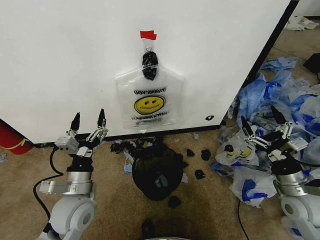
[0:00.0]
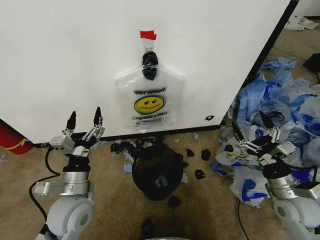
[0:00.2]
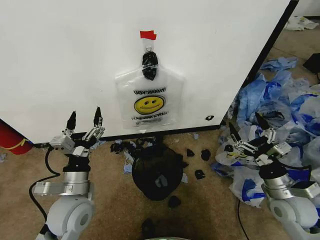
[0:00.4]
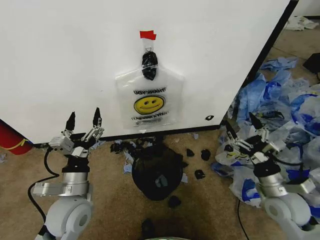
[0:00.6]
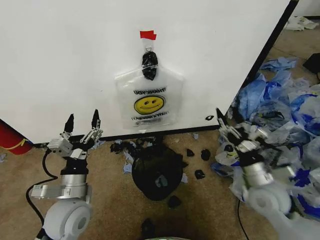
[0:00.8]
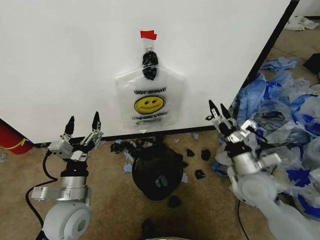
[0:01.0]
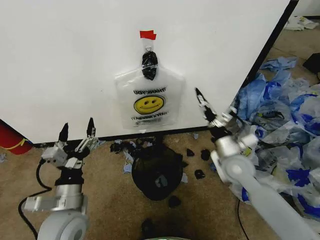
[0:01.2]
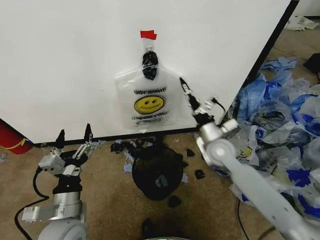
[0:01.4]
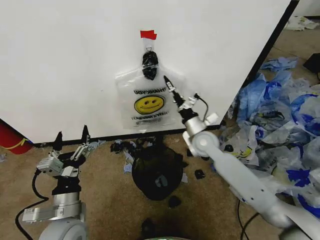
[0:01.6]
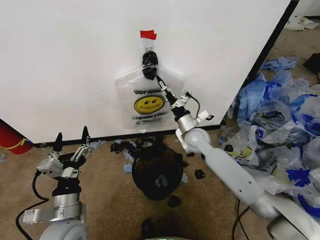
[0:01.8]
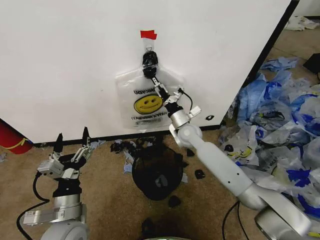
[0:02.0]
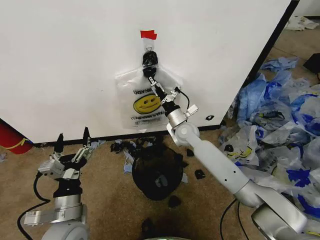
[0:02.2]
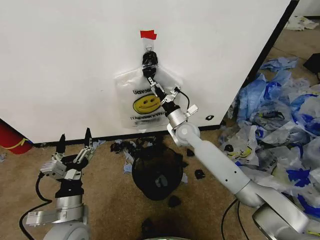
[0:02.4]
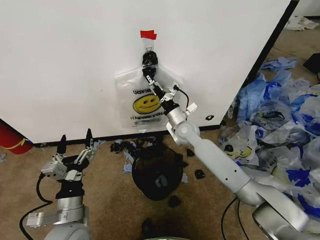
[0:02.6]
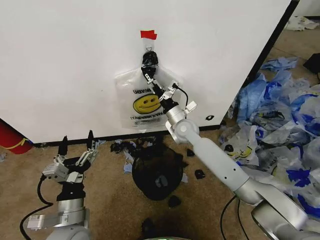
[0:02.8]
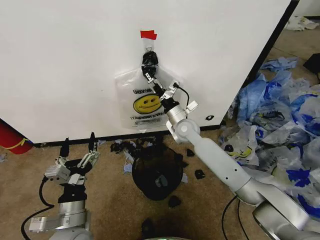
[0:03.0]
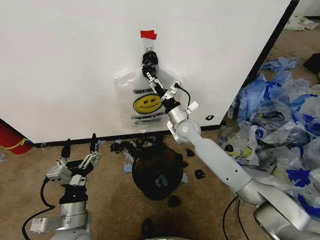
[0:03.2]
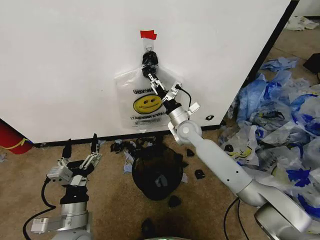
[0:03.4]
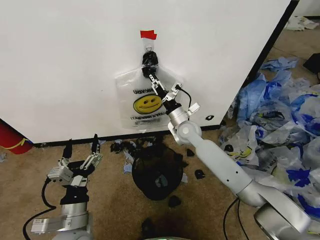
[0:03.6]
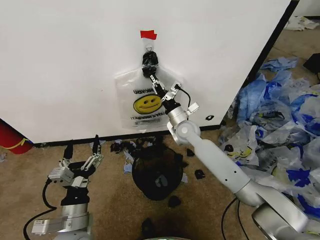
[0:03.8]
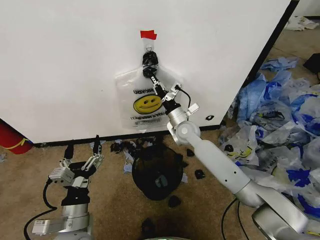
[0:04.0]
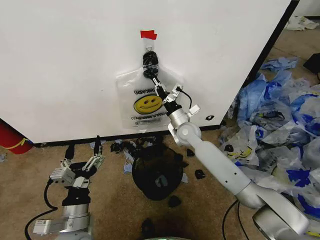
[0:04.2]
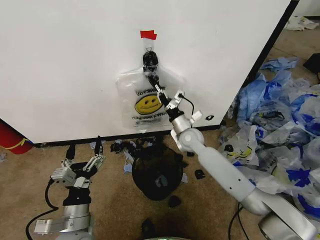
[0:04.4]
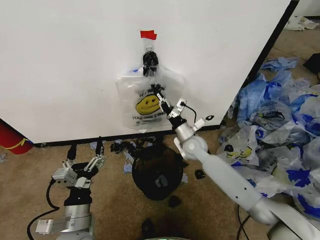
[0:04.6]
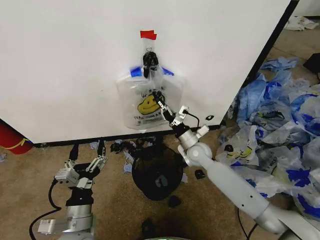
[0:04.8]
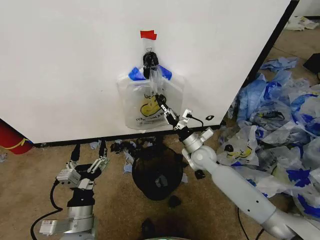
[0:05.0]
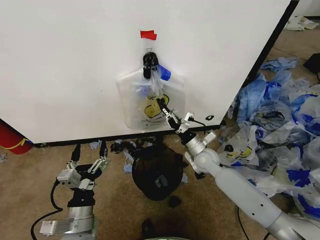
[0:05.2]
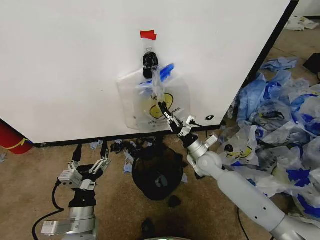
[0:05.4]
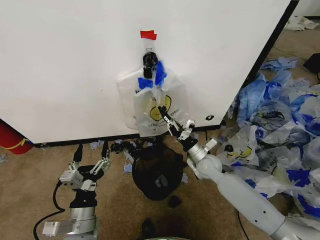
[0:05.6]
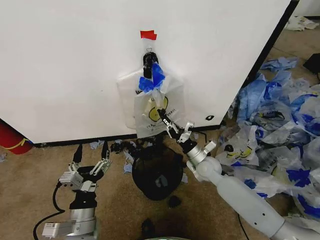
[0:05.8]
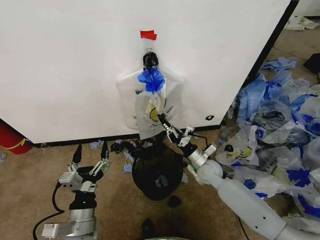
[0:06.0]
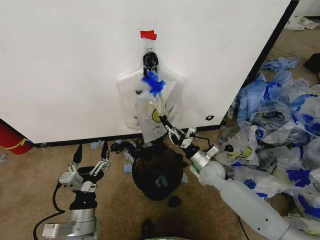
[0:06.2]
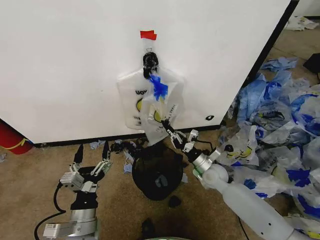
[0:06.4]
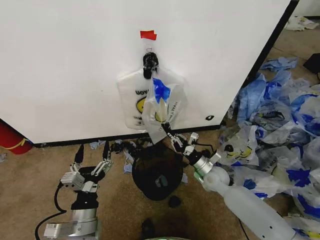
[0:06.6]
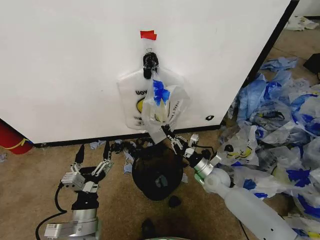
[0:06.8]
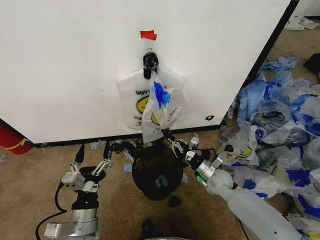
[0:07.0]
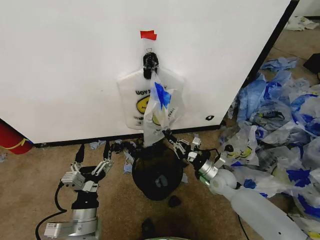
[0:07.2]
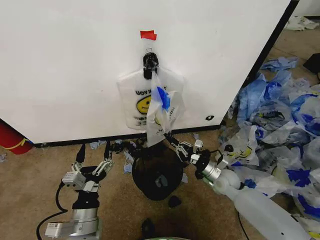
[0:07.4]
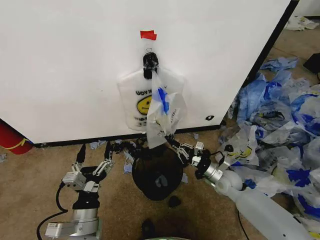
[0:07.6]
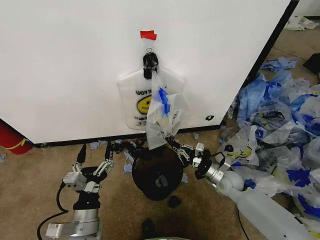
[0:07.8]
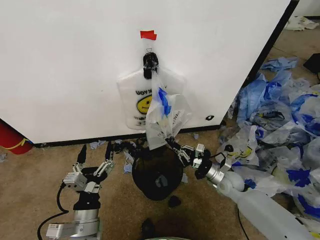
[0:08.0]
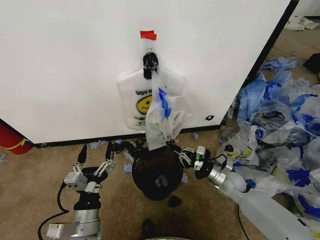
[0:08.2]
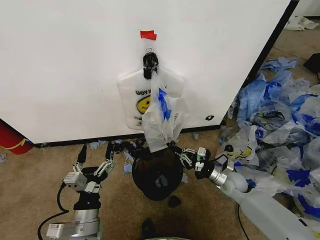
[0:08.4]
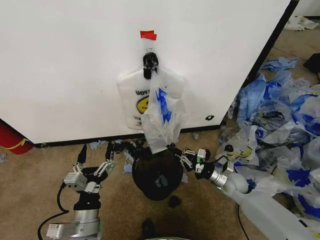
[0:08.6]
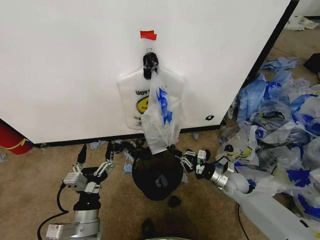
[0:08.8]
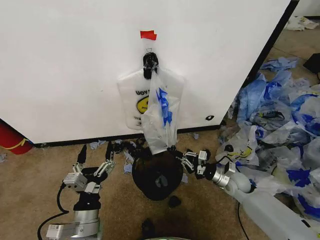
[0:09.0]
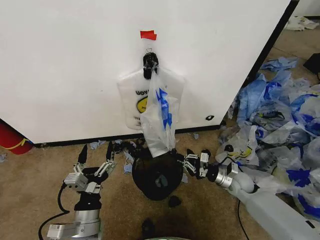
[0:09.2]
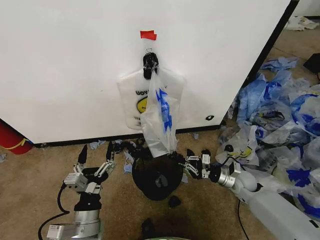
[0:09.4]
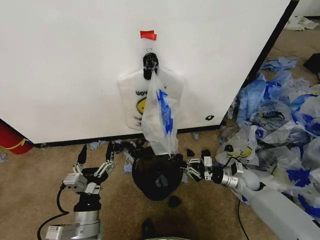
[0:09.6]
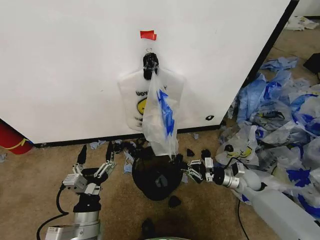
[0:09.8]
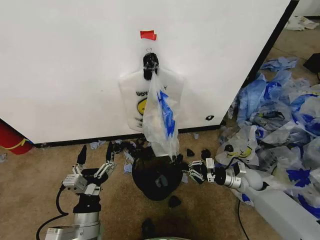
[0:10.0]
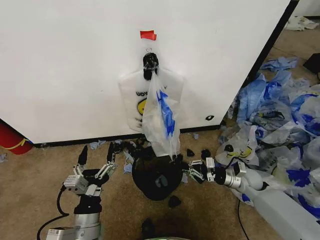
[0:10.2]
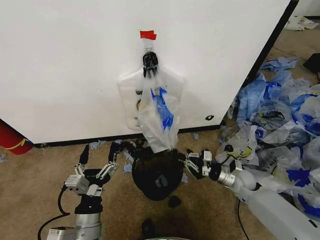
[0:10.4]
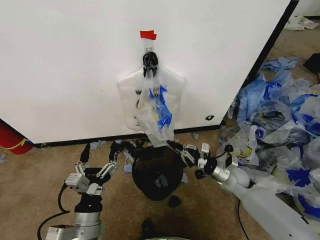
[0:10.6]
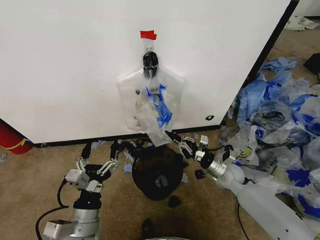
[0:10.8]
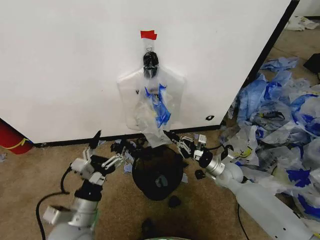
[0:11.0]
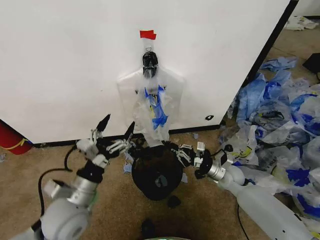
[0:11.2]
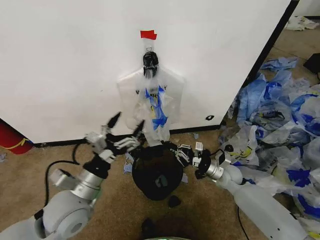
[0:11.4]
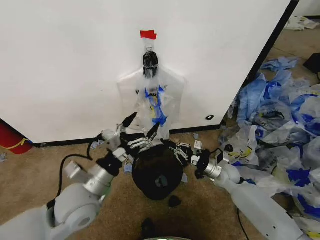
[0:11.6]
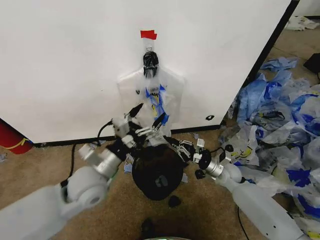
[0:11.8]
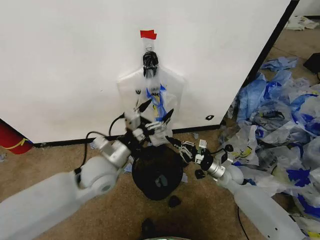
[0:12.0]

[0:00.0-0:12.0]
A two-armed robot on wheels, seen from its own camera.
Task of the whole recording: Pick up the garbage bag from the wall and place it over the trash bin.
0:01.6 to 0:03.0: The right gripper moves to the left and forward, some 10 cm.
0:03.0 to 0:04.4: The right gripper closes.
0:04.4 to 0:06.0: The right gripper is displaced downward, backward and to the right by roughly 15 cm.
0:06.0 to 0:07.6: The right gripper is displaced to the right by approximately 5 cm.
0:07.6 to 0:09.0: The grippers move only a little.
0:09.0 to 0:10.4: The grippers make only small movements.
0:10.4 to 0:12.0: The left gripper moves forward and upward, approximately 20 cm.

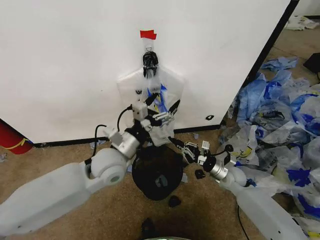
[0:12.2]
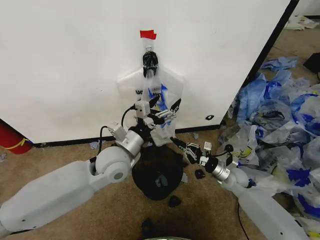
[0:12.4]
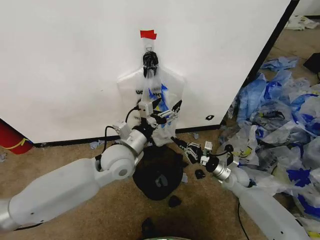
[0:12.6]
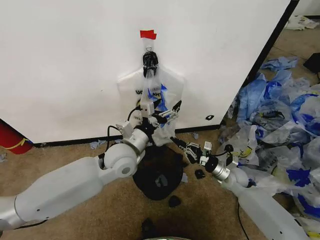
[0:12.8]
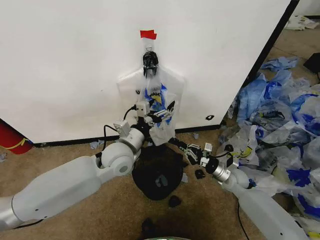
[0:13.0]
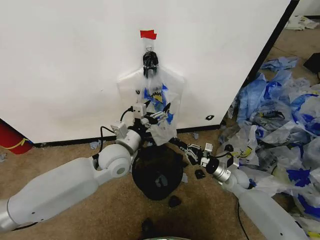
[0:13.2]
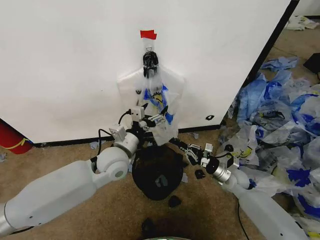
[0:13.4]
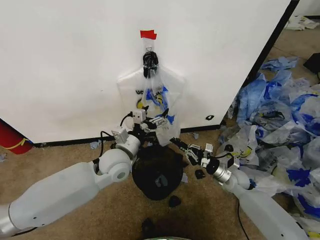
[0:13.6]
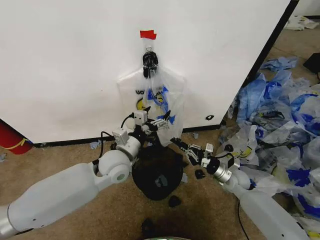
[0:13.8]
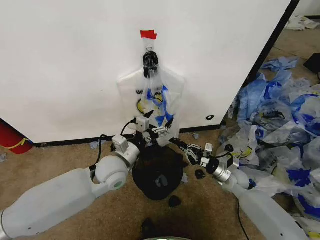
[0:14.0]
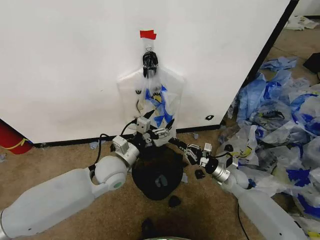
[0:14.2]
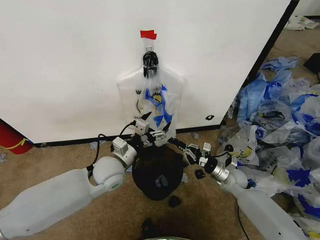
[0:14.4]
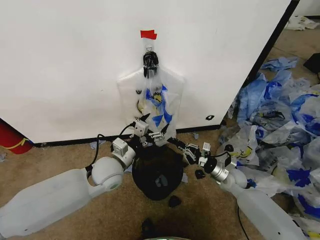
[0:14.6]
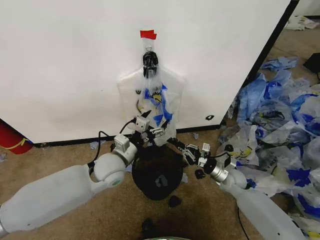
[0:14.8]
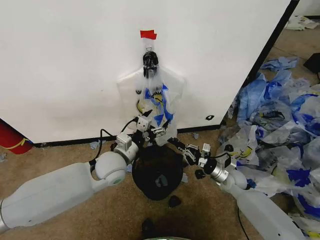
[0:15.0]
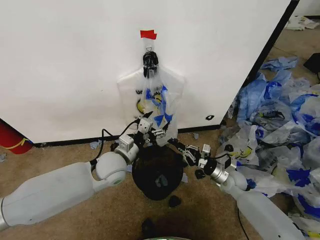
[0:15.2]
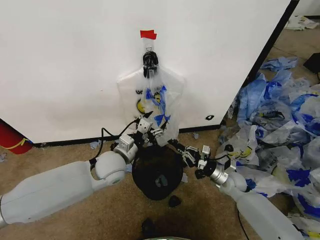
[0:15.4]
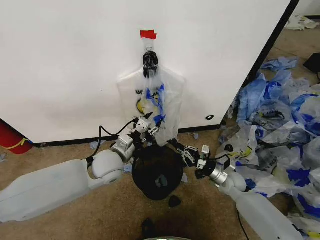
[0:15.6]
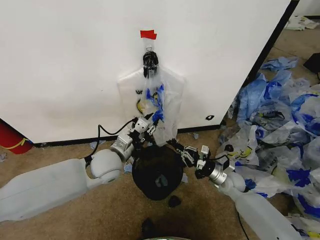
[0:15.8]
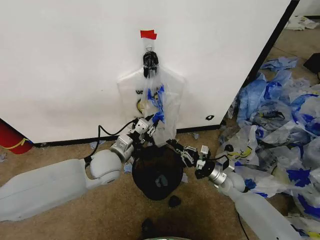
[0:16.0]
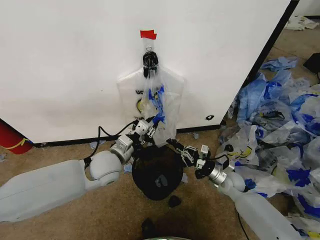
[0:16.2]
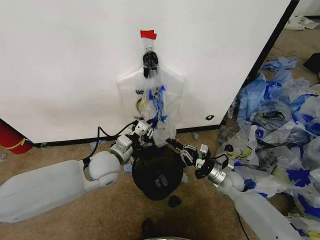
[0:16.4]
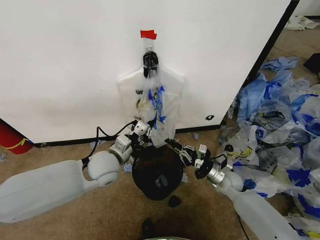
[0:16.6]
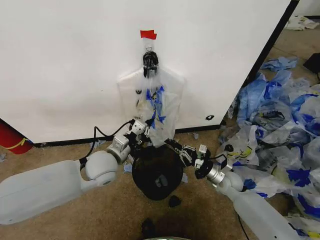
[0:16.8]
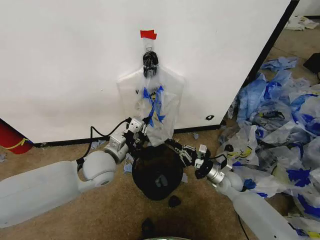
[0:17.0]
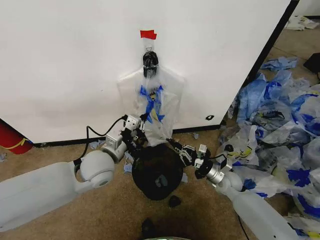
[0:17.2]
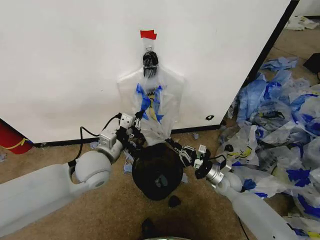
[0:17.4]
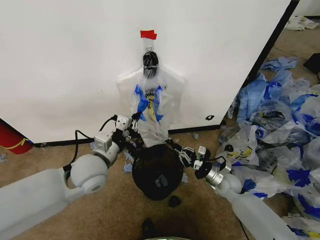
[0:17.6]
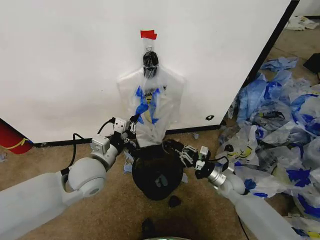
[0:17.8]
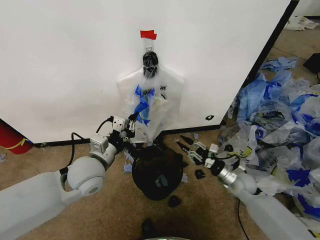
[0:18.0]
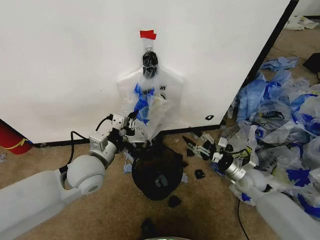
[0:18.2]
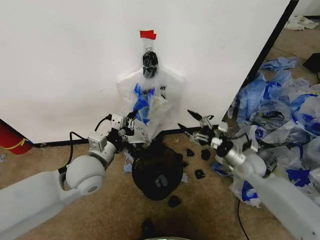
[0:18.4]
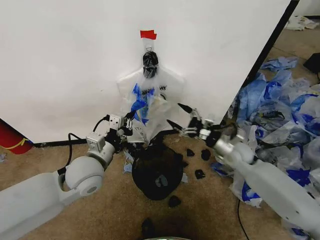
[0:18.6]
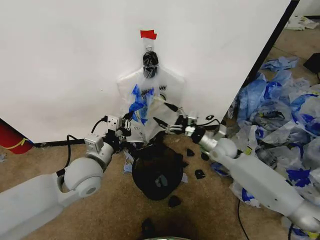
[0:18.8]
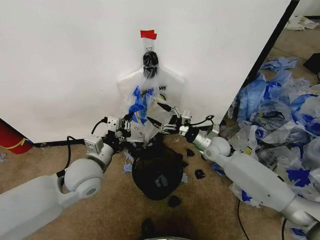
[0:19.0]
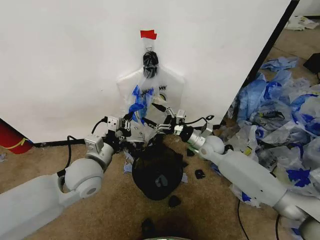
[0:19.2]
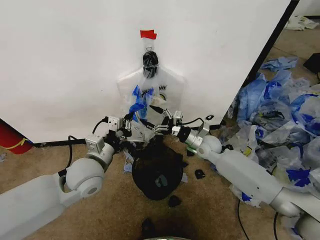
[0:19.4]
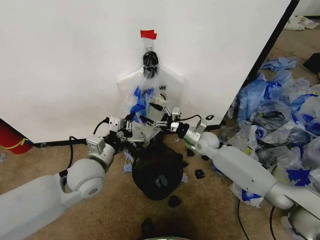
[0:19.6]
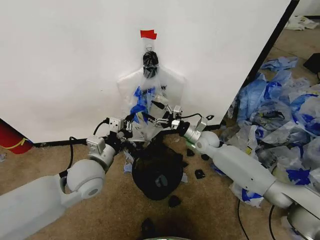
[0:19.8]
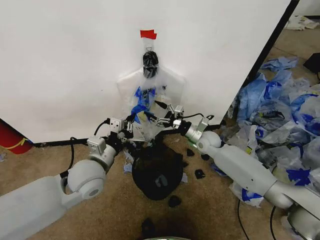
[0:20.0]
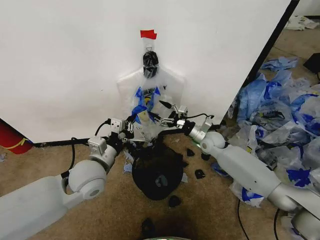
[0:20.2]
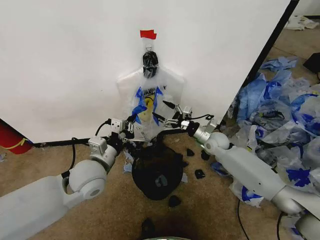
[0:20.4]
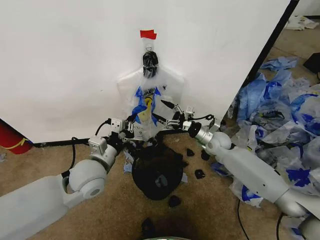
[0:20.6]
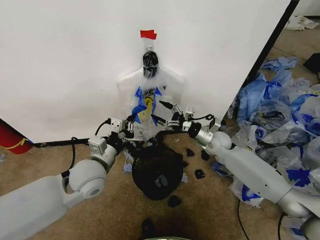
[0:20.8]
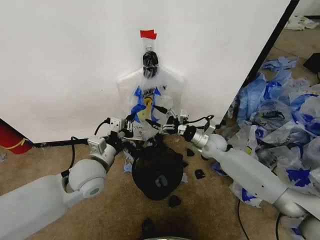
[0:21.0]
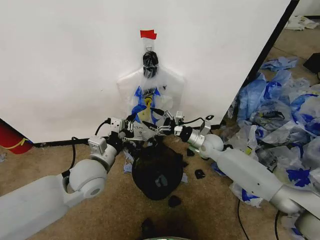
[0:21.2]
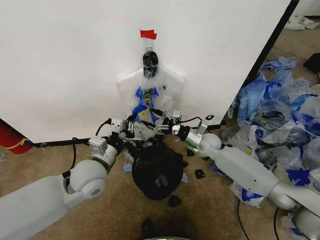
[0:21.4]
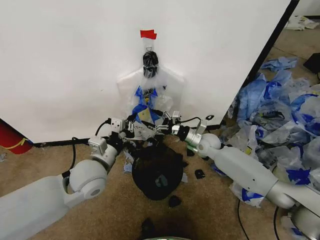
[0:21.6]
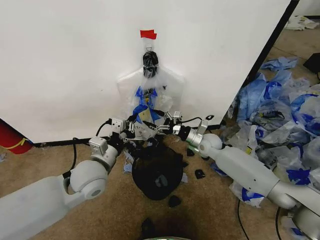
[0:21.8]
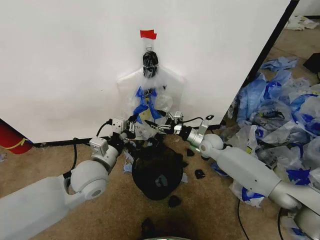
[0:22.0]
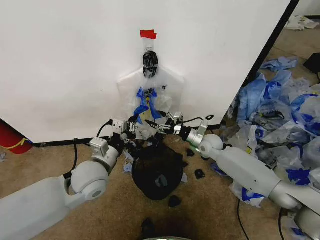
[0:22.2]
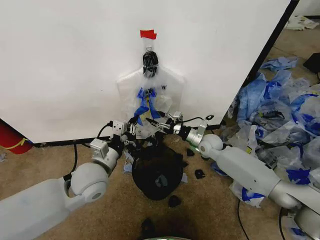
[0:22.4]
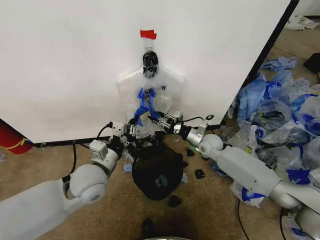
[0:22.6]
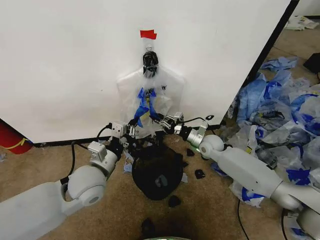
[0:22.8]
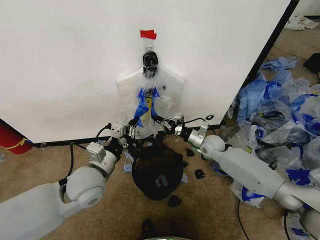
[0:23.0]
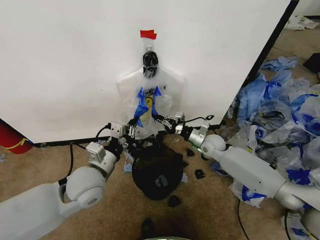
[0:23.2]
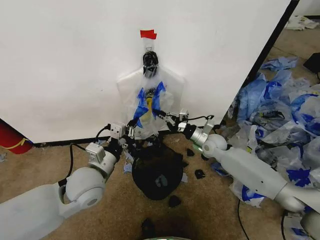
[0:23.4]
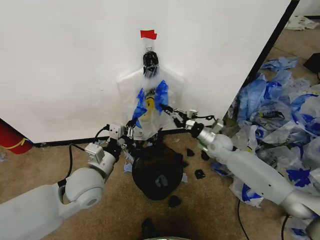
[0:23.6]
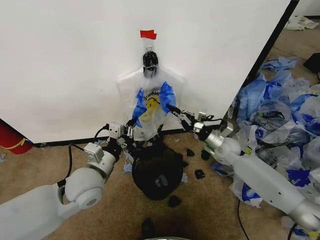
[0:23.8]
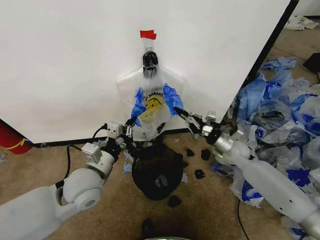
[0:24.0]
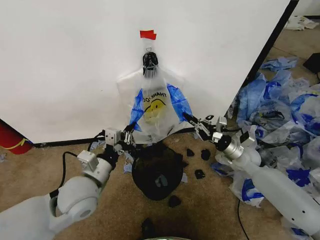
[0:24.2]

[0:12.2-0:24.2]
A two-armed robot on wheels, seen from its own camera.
Task of the whole recording: Pick up the garbage bag from the wall and place it over the trash bin.
0:12.2 to 0:13.8: The grippers make only small movements.
0:15.2 to 0:16.6: The left gripper closes up.
0:16.6 to 0:18.2: The left gripper moves about 5 cm. The right gripper shifts approximately 10 cm upward and to the right, and opens its fingers.
0:18.2 to 0:19.8: The right gripper is displaced forward and to the left by about 20 cm.
0:19.8 to 0:21.2: The grippers make only small movements.
0:21.2 to 0:22.6: The right gripper closes up.
0:22.6 to 0:24.2: The right gripper shifts roughly 15 cm to the right and backward, and closes.
